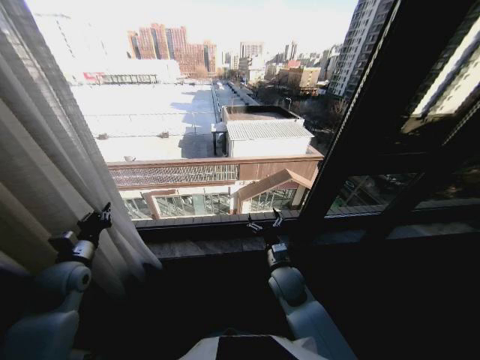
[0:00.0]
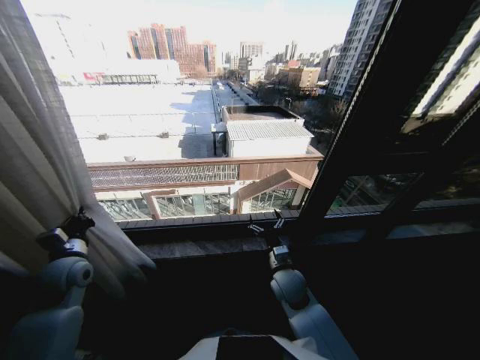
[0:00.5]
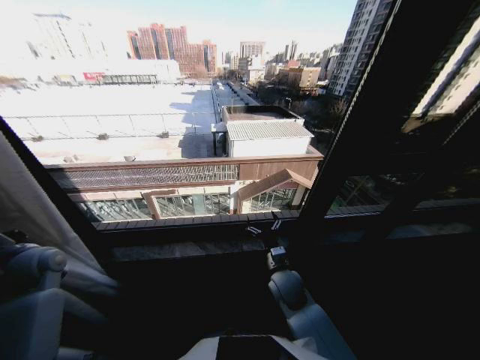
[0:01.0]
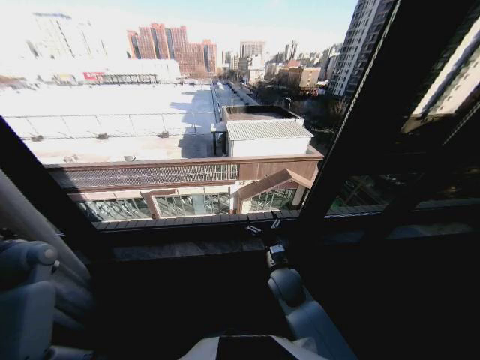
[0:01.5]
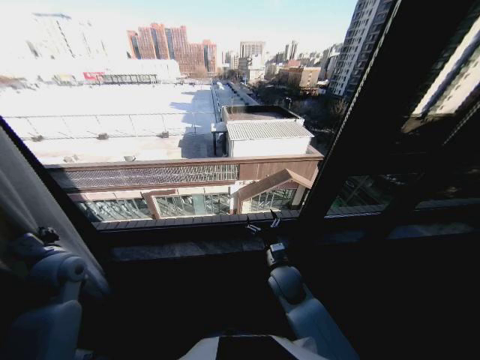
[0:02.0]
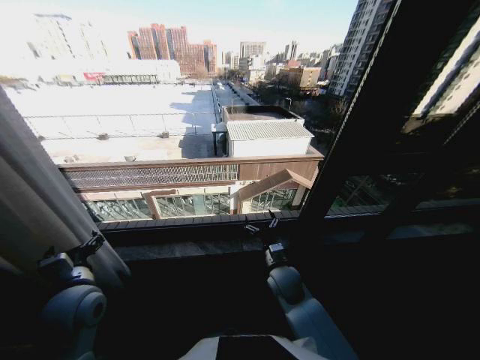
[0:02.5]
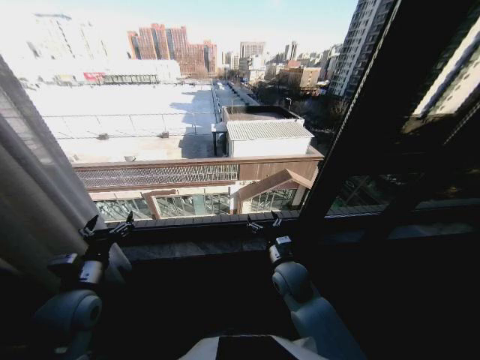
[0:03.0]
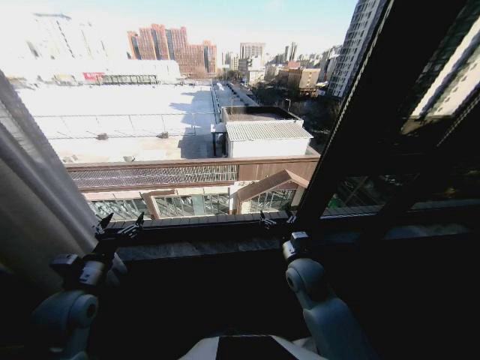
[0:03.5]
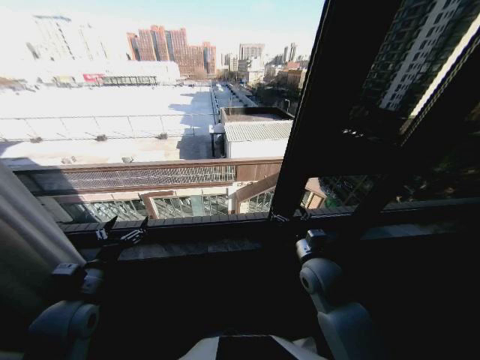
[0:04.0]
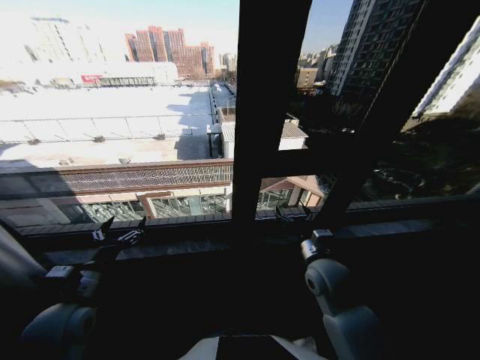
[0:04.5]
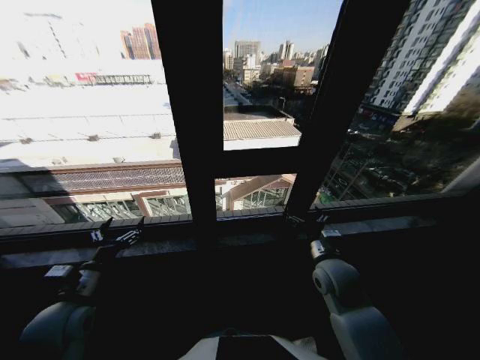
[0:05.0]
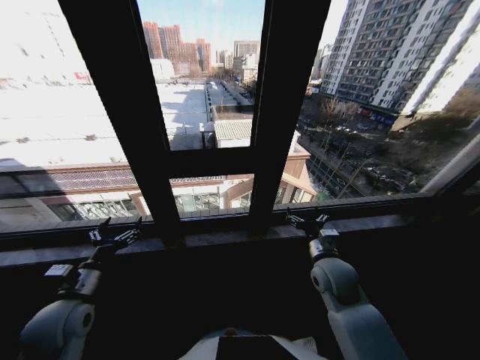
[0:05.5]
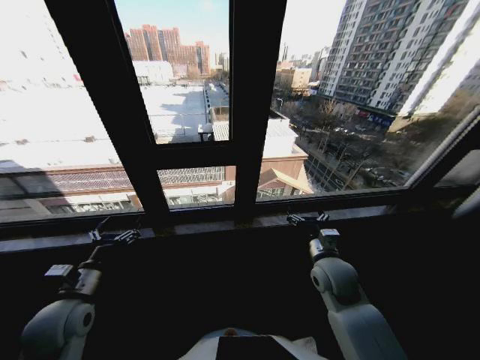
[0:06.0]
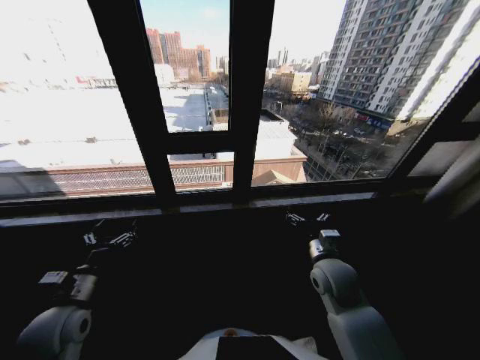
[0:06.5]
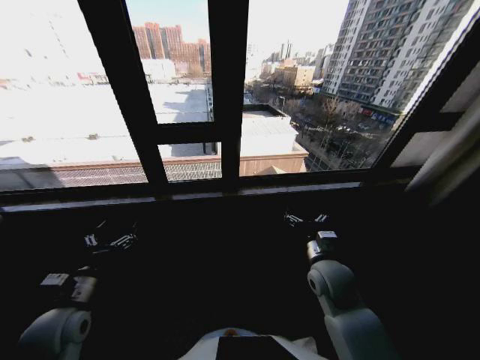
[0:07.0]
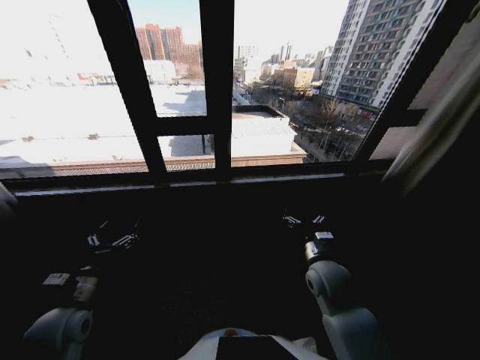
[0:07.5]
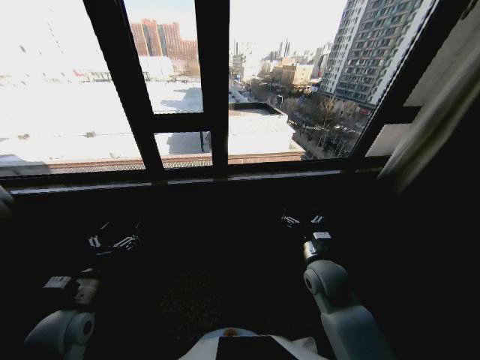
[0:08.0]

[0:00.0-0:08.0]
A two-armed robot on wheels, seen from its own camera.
Task of the whole recording: Open the curtains by pulling them apart, changing their state from closed to fully open.
0:00.0 to 0:02.0: The left gripper travels to the left and back again, some 10 cm each way.
0:02.0 to 0:04.0: The left gripper moves backward and to the right, approximately 15 cm, and opens up, while the right gripper is displaced upward and to the right by about 10 cm.
